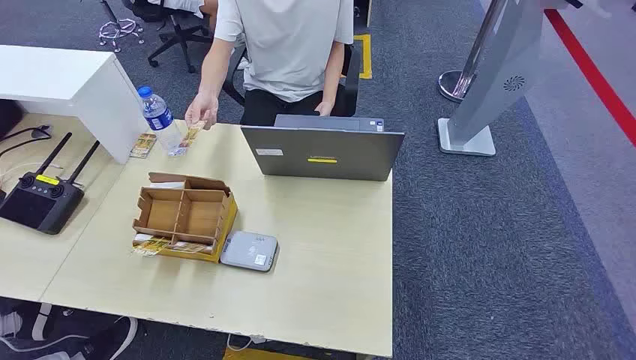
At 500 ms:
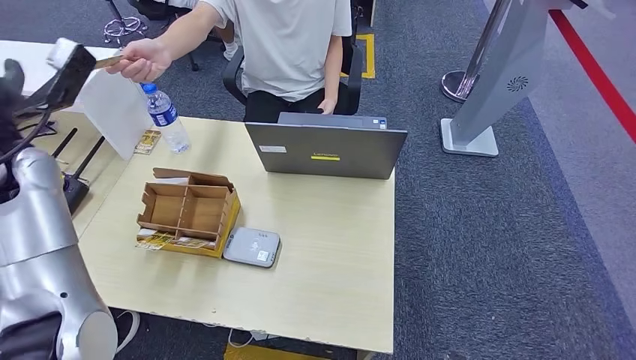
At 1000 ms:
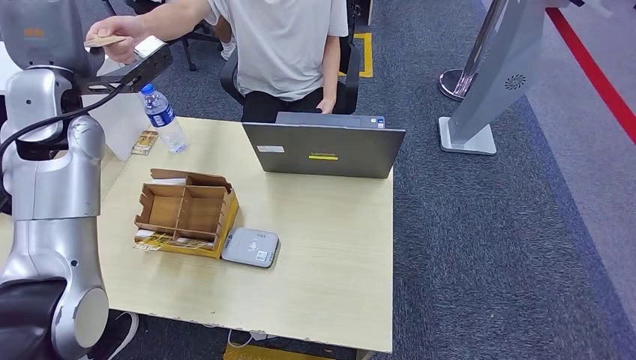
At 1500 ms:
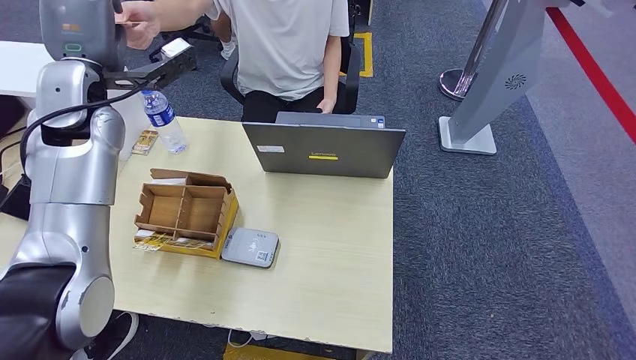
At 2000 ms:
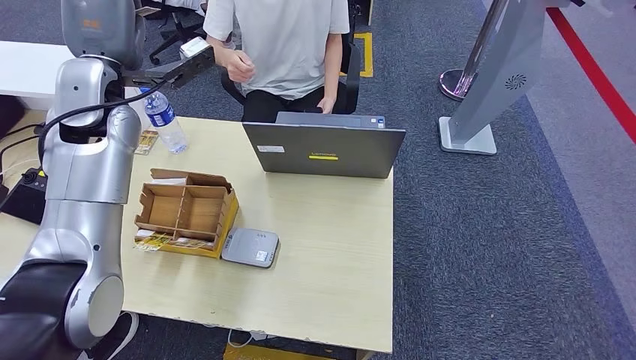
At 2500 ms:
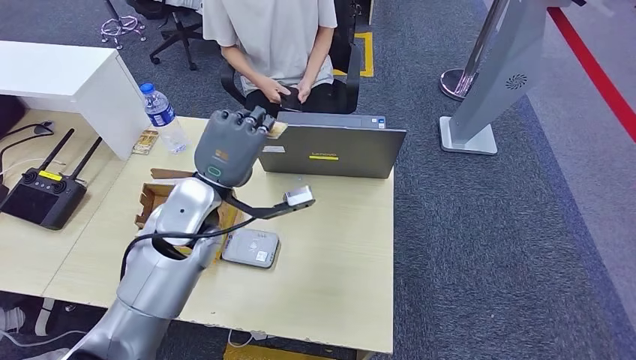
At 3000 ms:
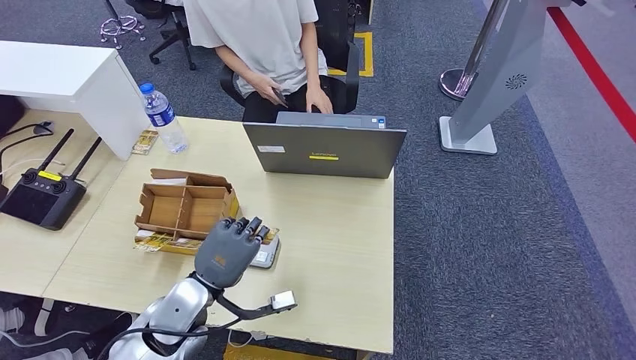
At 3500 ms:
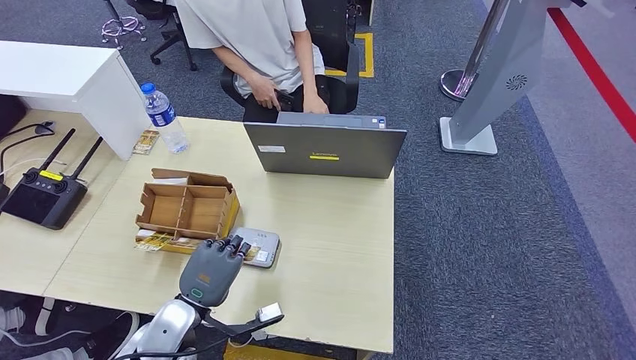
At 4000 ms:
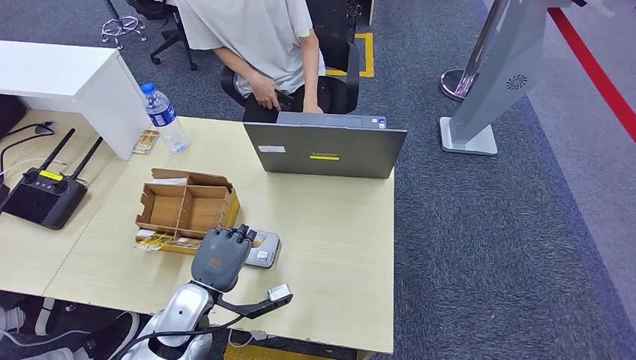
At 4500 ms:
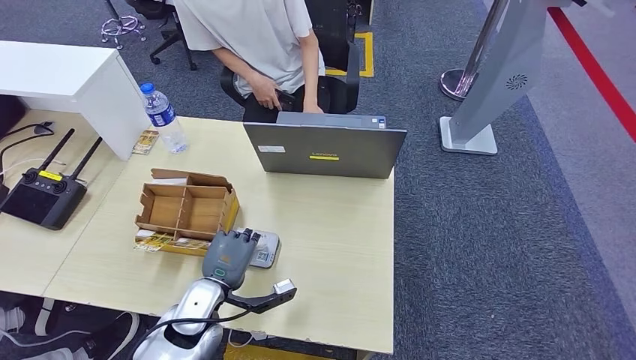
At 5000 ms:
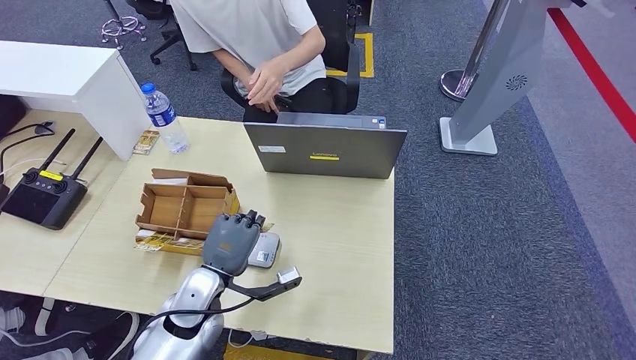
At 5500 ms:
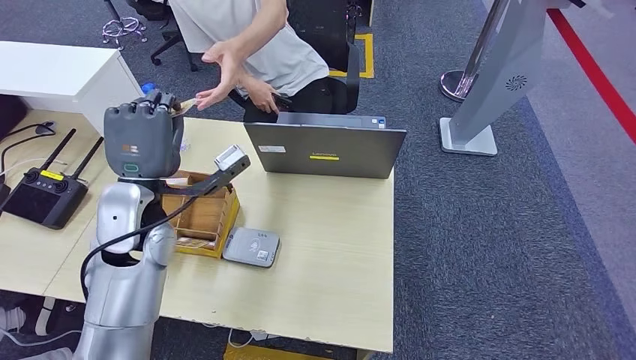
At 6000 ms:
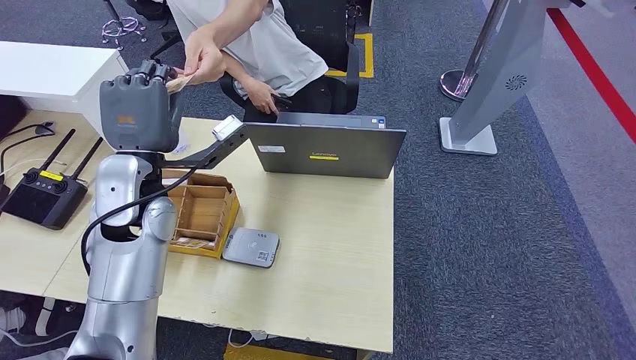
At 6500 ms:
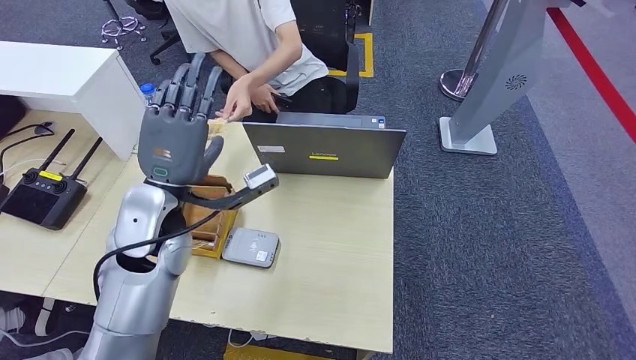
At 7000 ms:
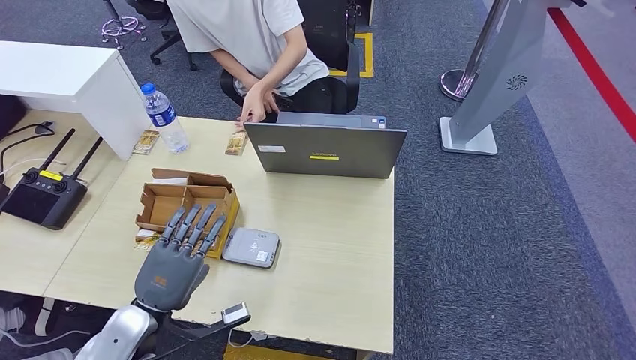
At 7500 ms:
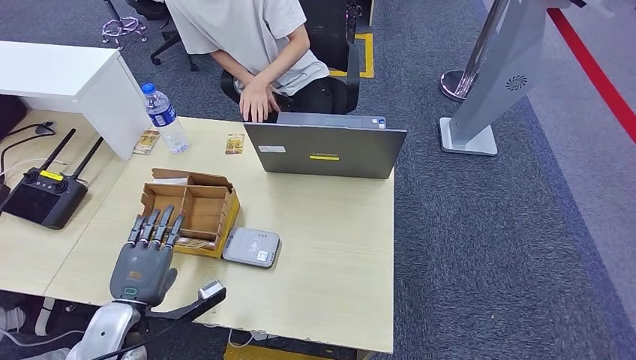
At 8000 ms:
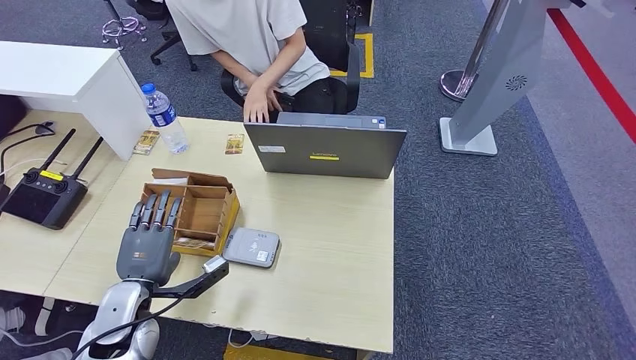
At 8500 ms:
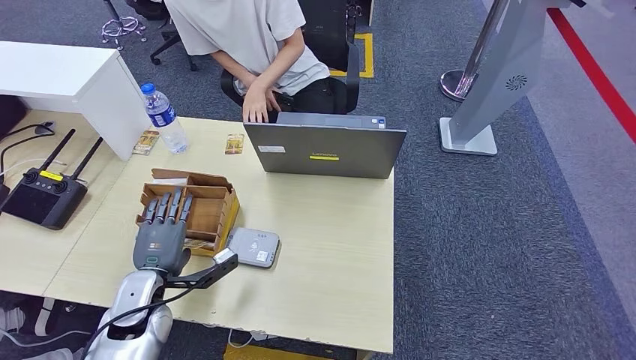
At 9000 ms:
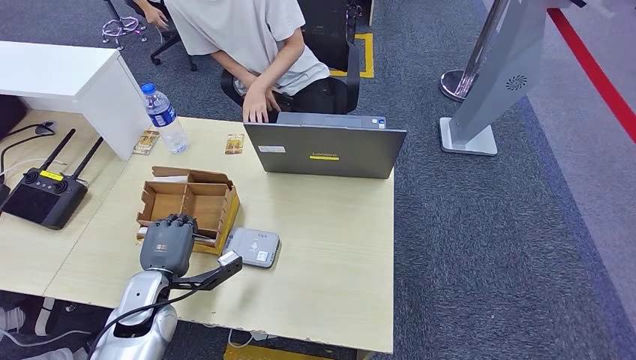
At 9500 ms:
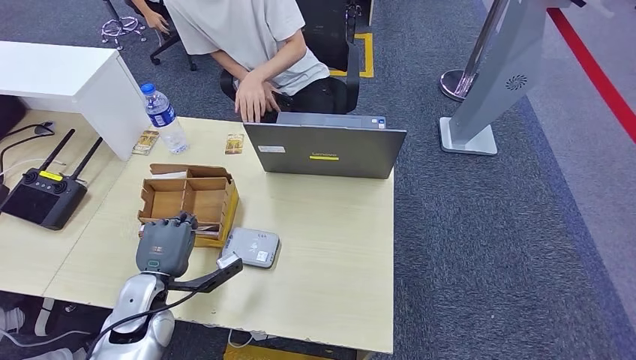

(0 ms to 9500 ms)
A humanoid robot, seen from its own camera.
Step, 0 ms - 4000 ms: Take the ID card from the person's hand.
Step, 4500 ms - 5000 ms: Place the ID card on the card reader.
Step, 5500 ms - 7500 ms: Hand the ID card to the person.
2000 ms - 4000 ms: The left hand shifts some 35 cm downward and backward.
4000 ms - 5500 ms: The left hand moves upward and forward, about 20 cm.
5500 ms - 7500 ms: The left hand is displaced downward and backward by roughly 20 cm.
7500 ms - 9500 ms: The left hand goes about 5 cm forward.

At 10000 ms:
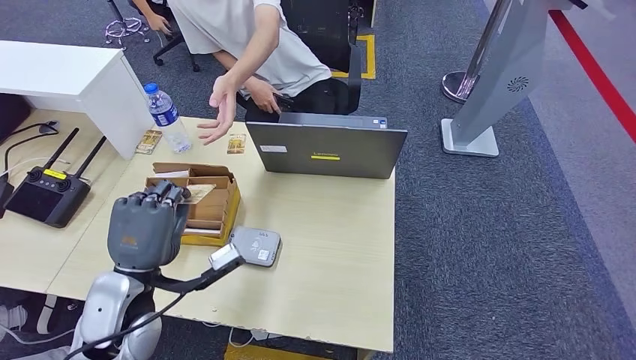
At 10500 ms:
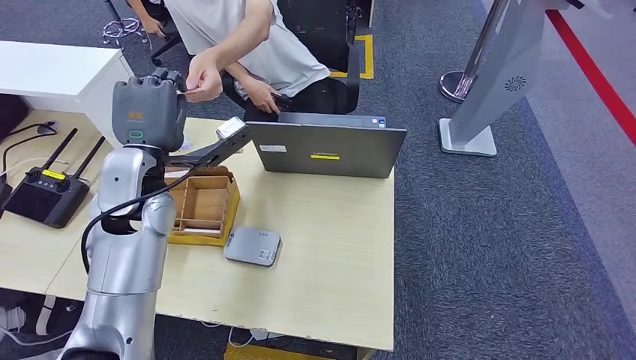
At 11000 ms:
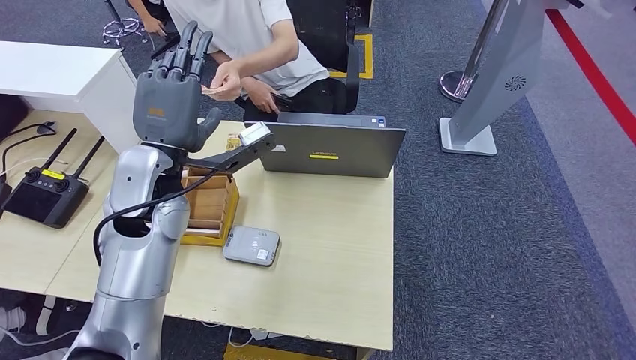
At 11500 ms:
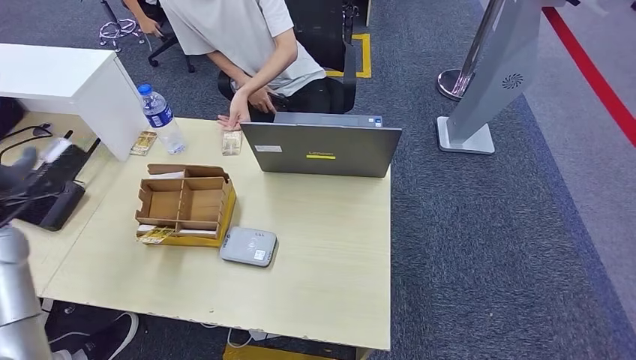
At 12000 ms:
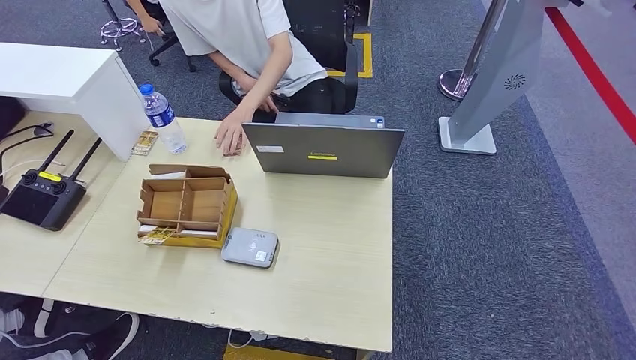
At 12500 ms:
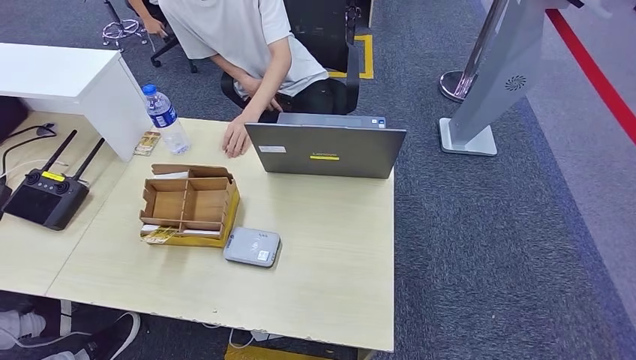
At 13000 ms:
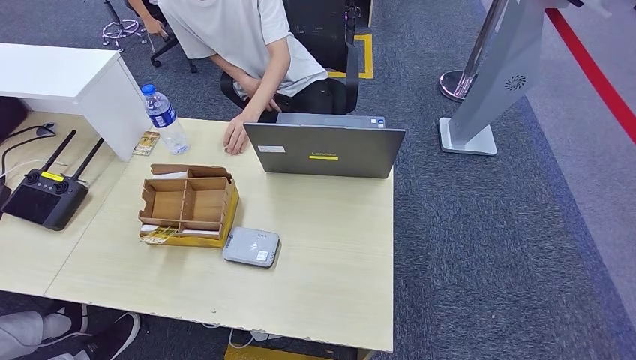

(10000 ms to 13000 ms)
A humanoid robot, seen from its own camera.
Step, 10500 ms - 13000 ms: Hand the room key to the person.
11500 ms - 13000 ms: The left hand heads downward and backward, covering roughly 50 cm.
